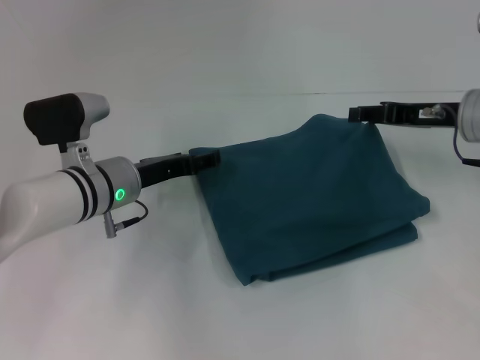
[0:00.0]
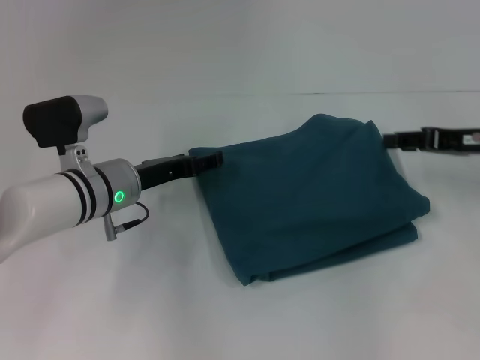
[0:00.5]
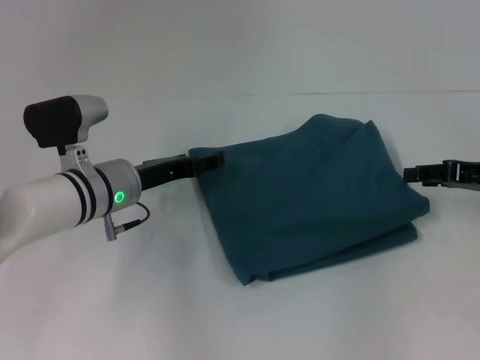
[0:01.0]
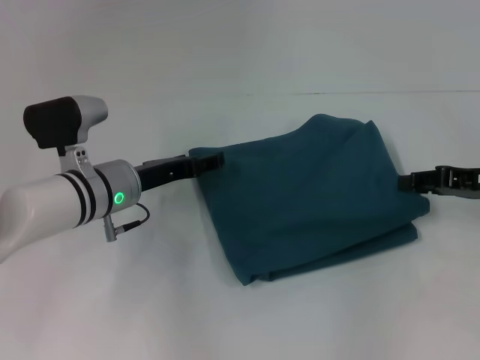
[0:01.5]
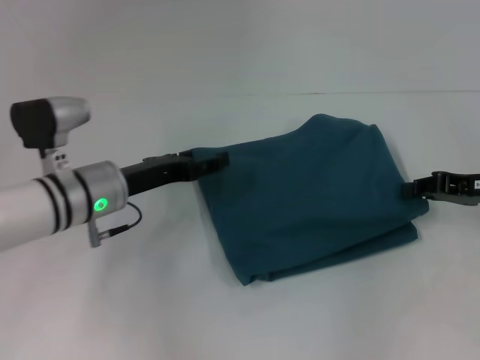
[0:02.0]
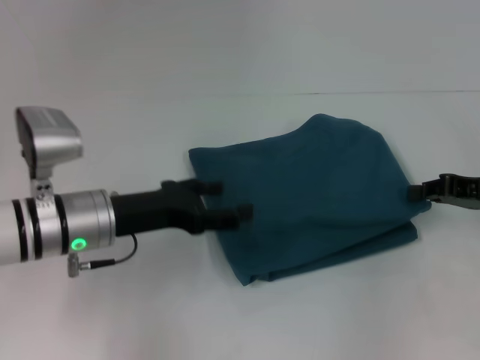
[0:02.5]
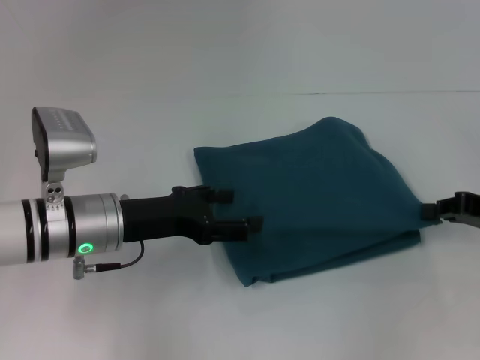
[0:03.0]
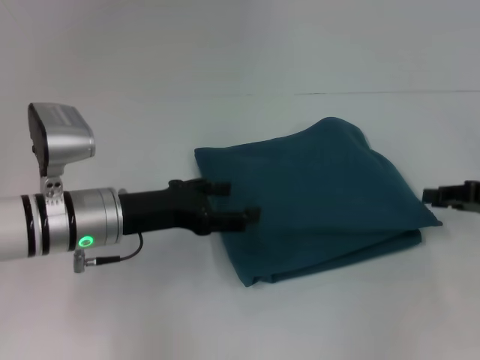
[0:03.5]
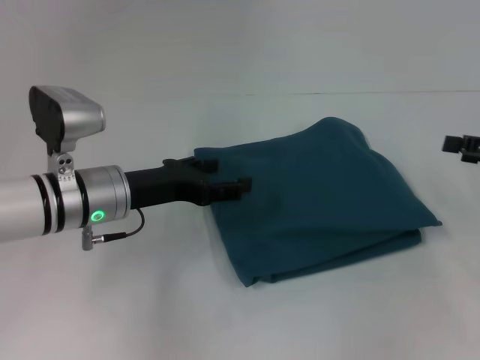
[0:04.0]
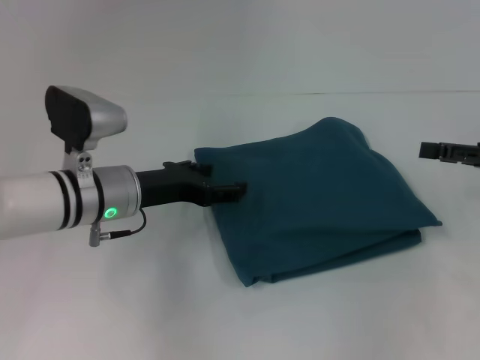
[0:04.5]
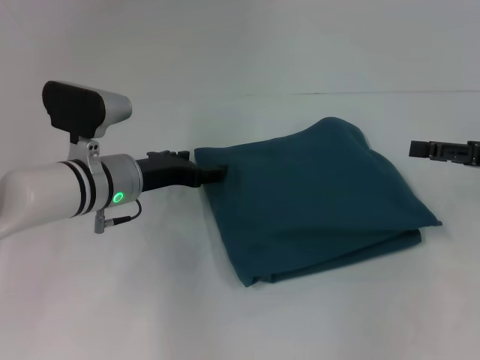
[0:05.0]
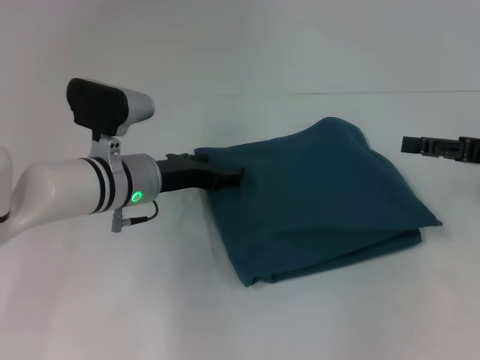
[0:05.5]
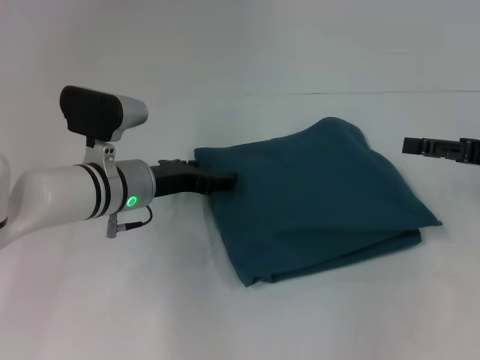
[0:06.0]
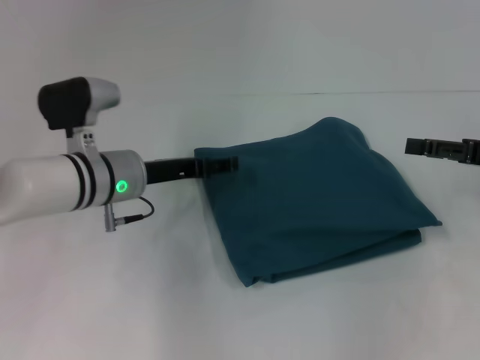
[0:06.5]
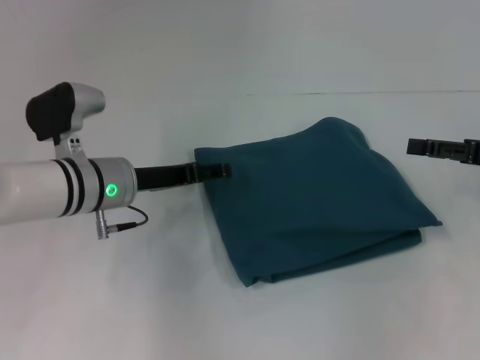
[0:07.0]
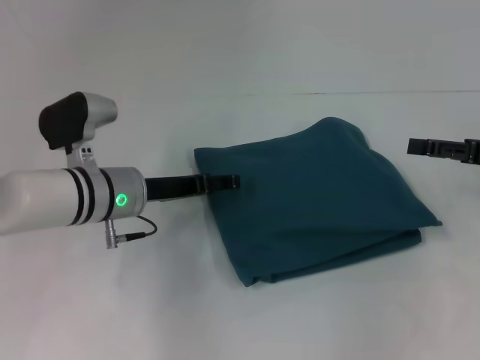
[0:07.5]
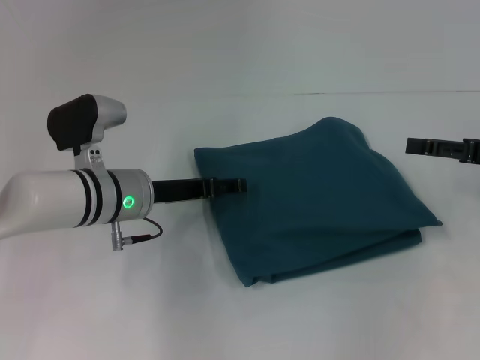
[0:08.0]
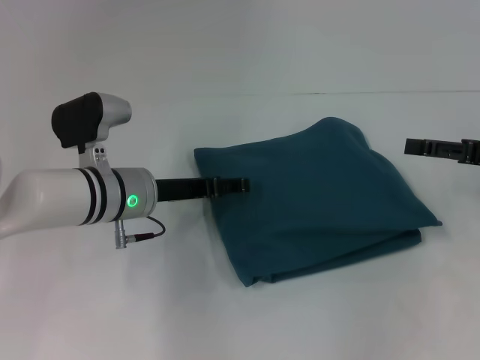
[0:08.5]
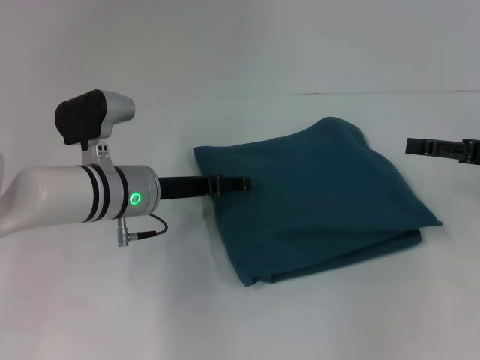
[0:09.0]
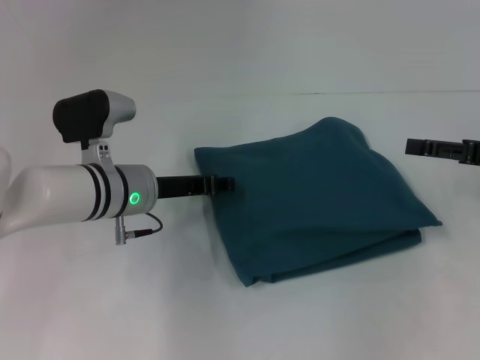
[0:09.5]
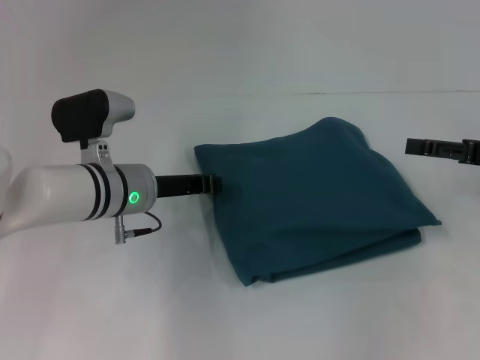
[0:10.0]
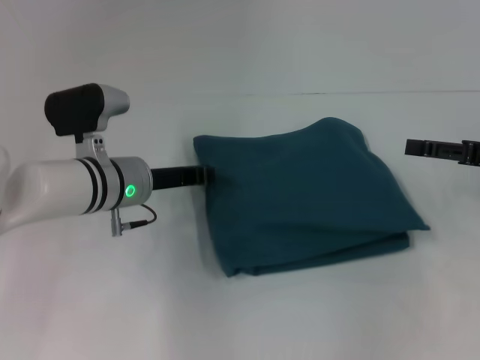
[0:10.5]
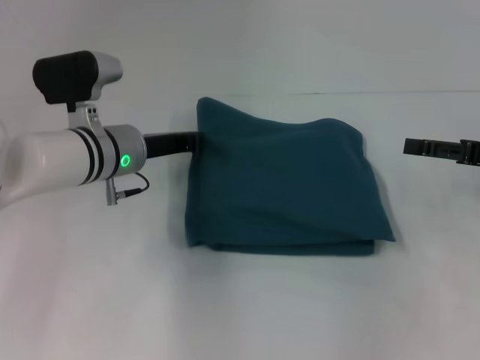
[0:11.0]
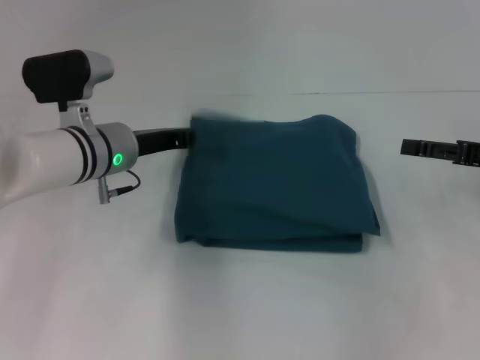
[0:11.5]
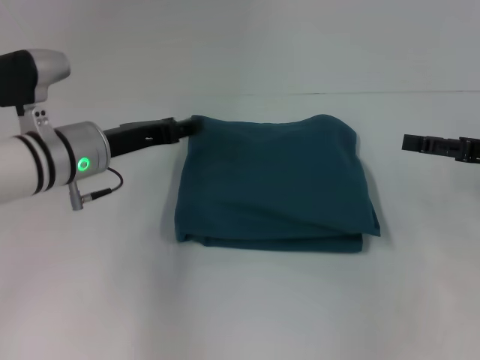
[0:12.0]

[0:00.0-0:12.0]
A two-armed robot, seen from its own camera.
0:00.0 to 0:02.0: The right gripper travels to the right and backward by approximately 10 cm.
0:02.0 to 0:04.0: The right gripper travels to the right by about 5 cm, and closes, then opens again.
0:04.0 to 0:06.0: The grippers stay close to where they were, moving slightly.
0:08.0 to 0:10.0: The left gripper closes.
0:10.0 to 0:12.0: The left gripper shifts by roughly 5 cm.

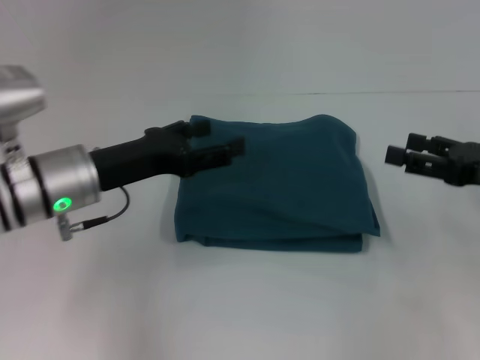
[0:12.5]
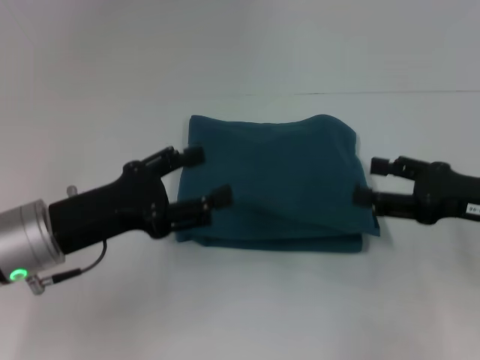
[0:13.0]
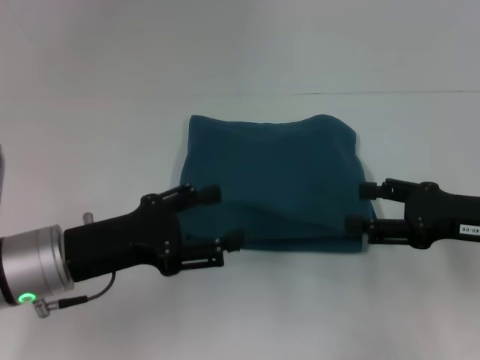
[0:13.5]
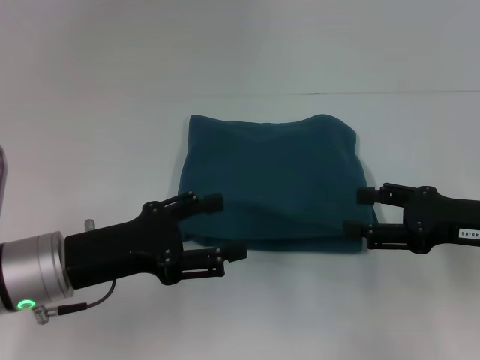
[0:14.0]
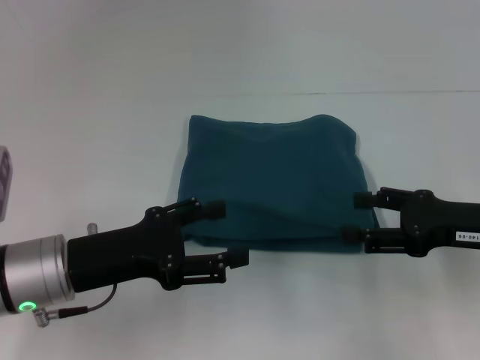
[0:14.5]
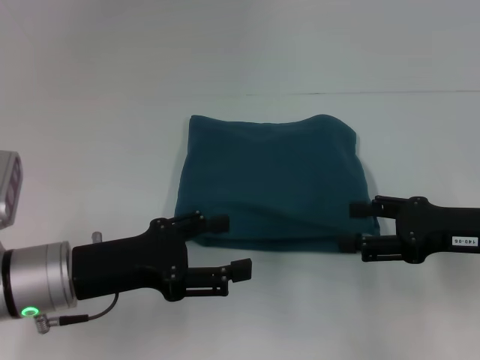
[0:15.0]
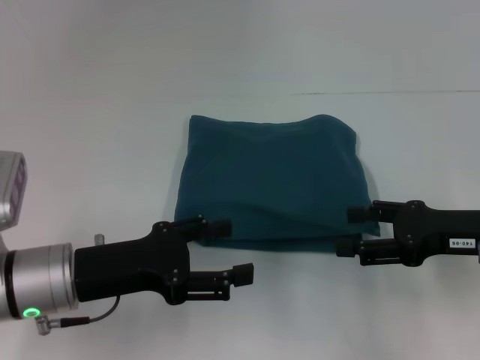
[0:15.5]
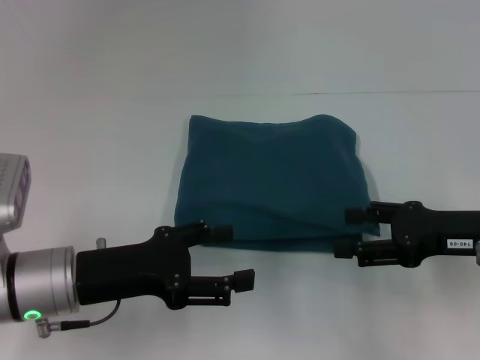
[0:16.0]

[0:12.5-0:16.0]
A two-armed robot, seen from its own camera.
0:12.5 to 0:14.5: The left gripper goes about 5 cm backward.
0:14.5 to 0:16.0: There are only small adjustments of the grippers.
